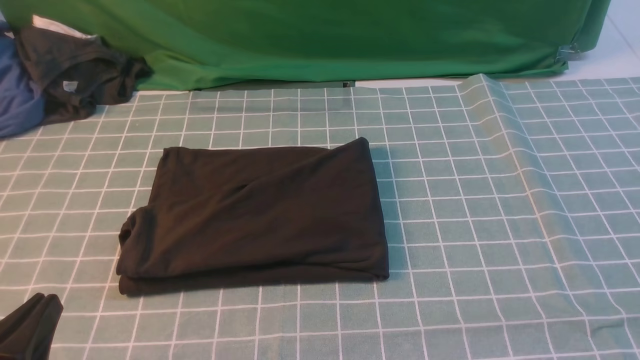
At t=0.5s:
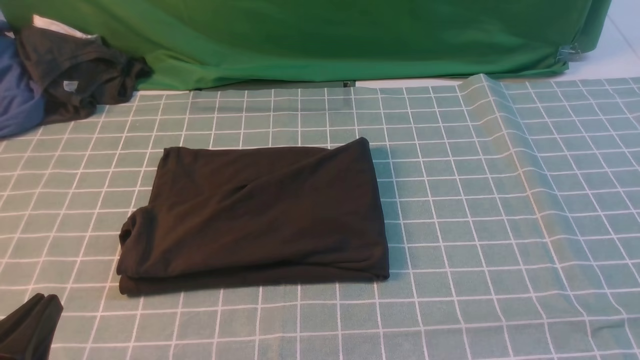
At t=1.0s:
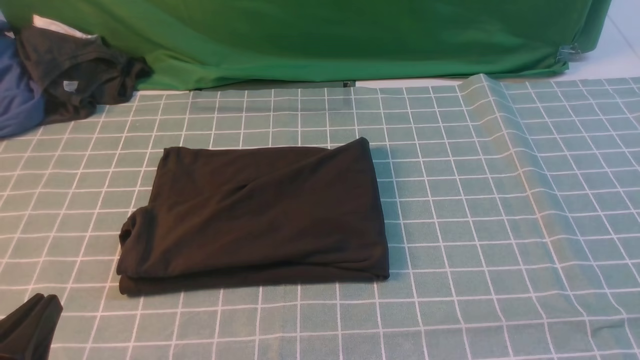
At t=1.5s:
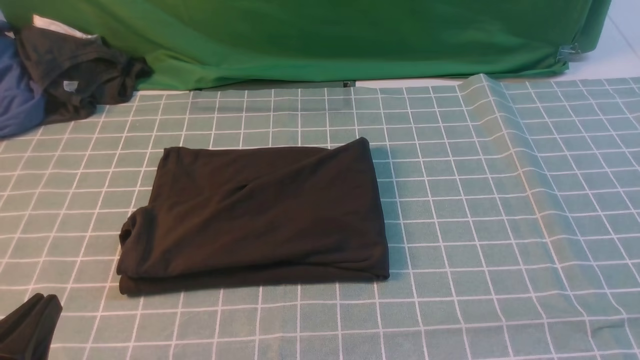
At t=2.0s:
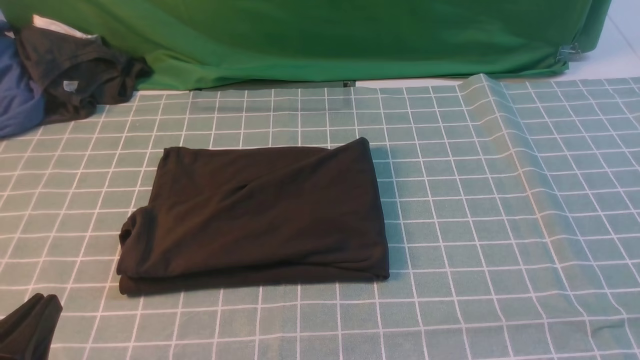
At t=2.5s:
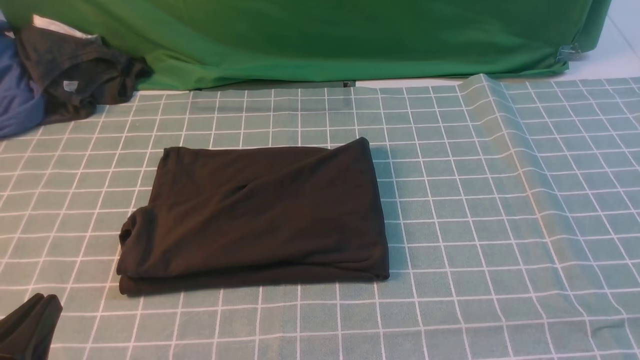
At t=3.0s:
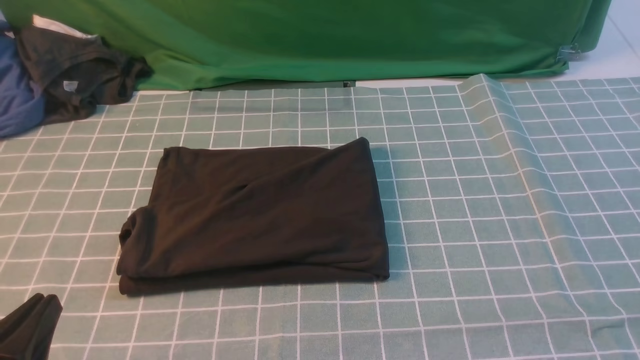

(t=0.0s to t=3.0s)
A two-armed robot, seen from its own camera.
t=1.5s - t=3.0s: Neither gripper changes place.

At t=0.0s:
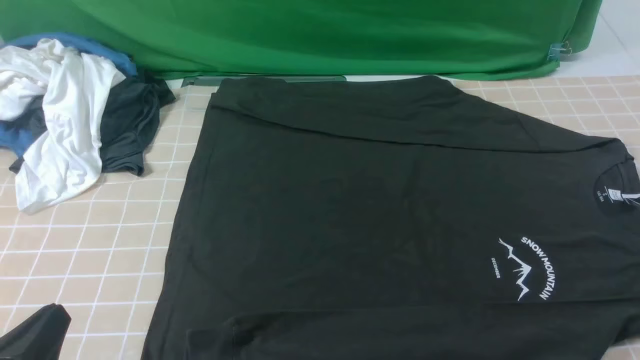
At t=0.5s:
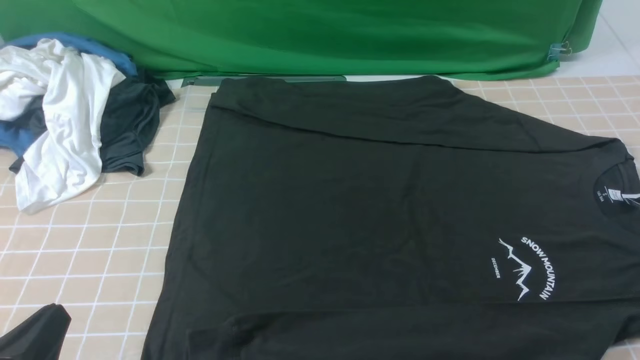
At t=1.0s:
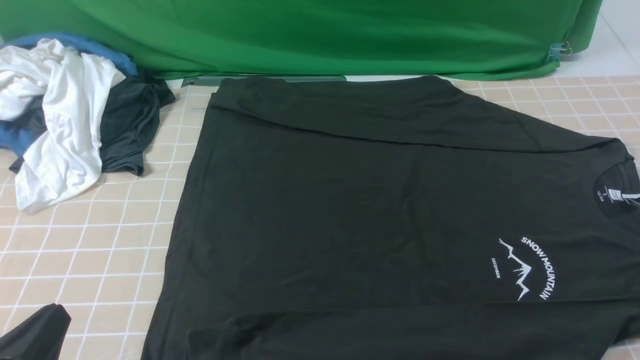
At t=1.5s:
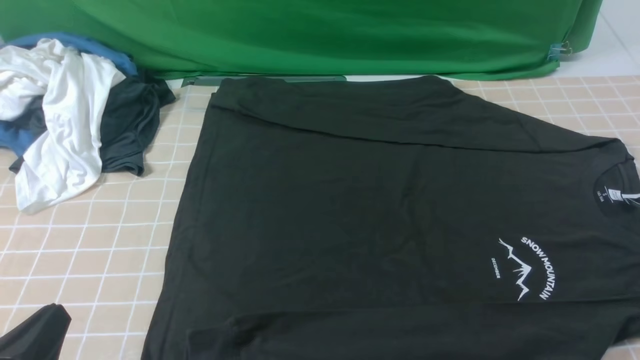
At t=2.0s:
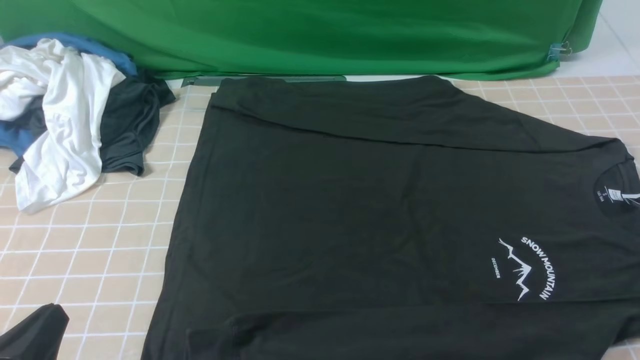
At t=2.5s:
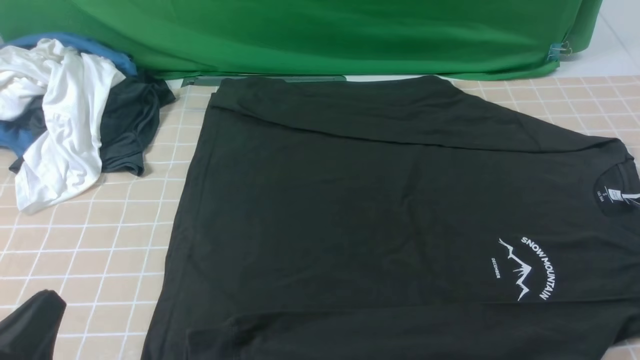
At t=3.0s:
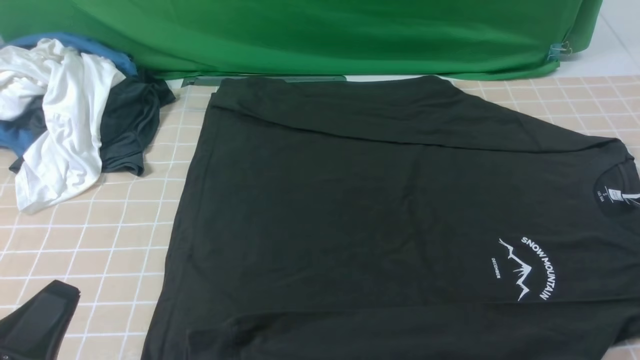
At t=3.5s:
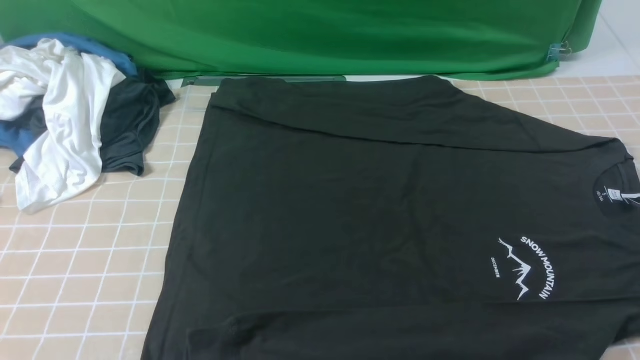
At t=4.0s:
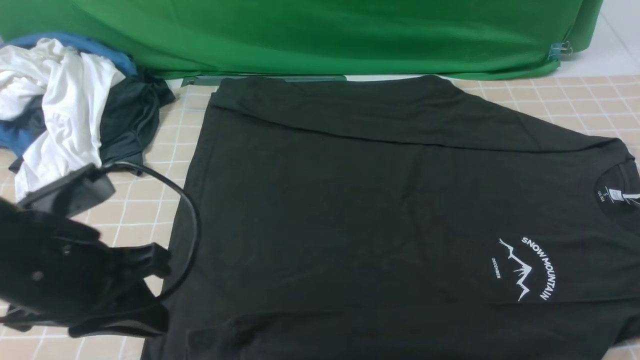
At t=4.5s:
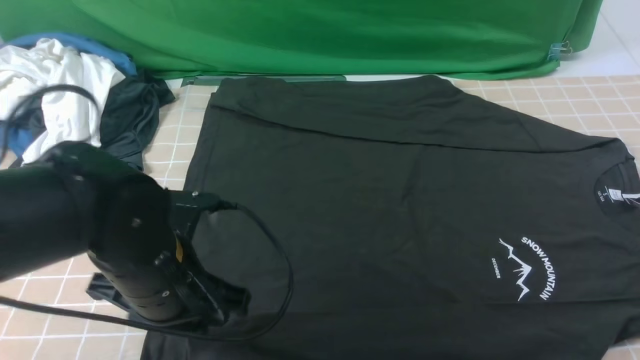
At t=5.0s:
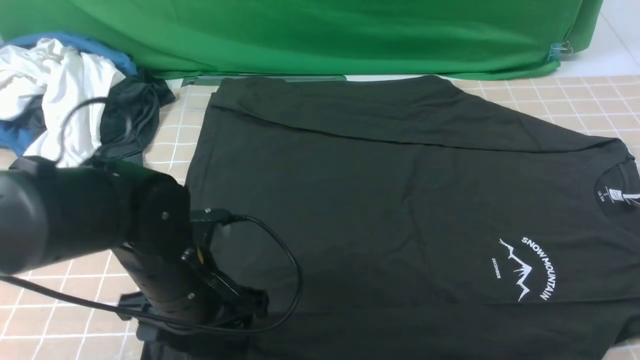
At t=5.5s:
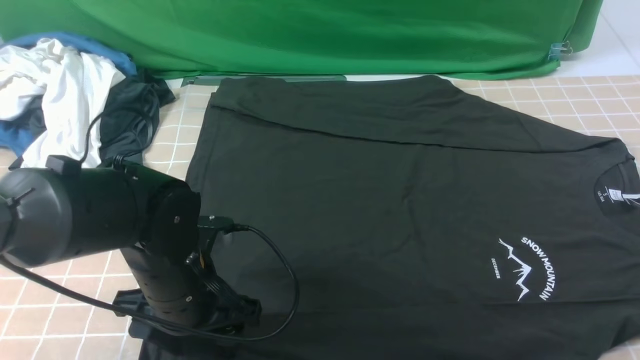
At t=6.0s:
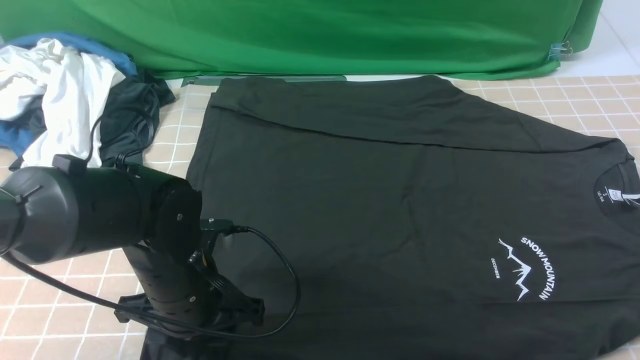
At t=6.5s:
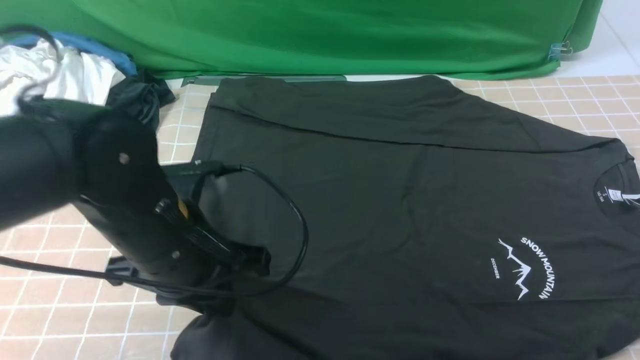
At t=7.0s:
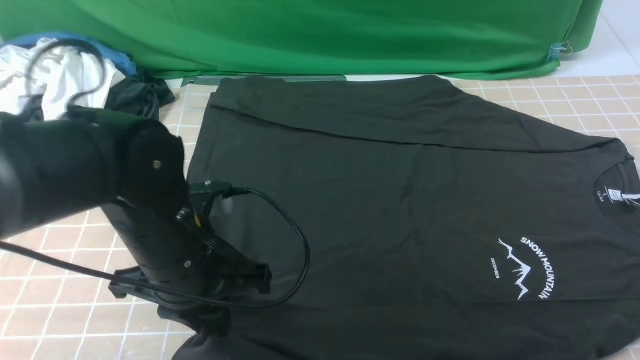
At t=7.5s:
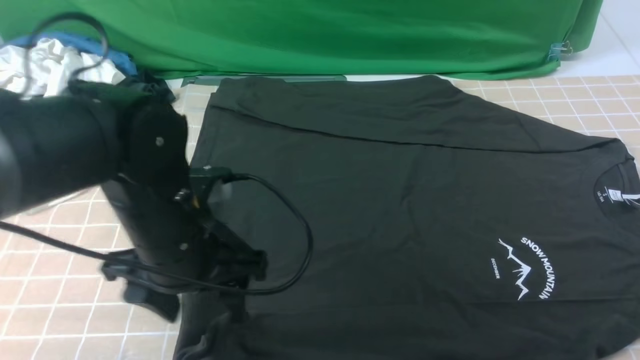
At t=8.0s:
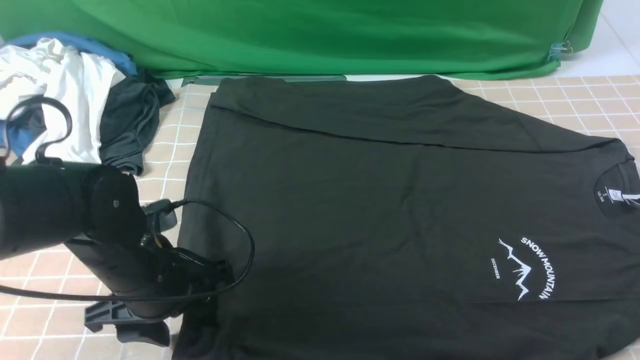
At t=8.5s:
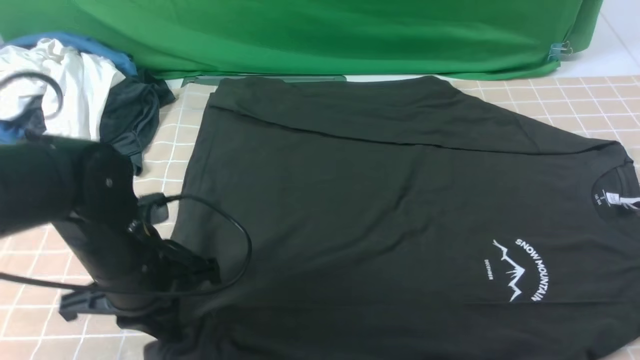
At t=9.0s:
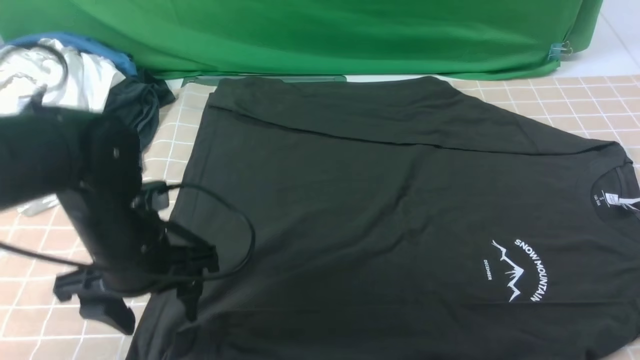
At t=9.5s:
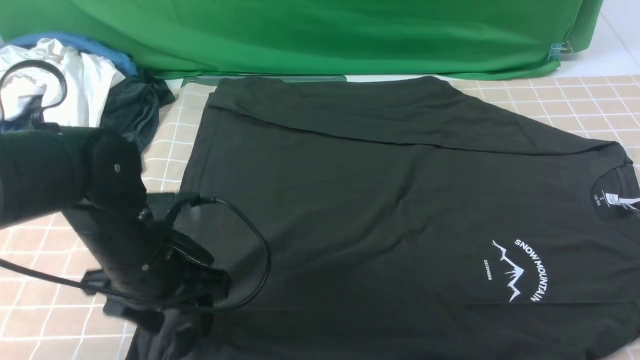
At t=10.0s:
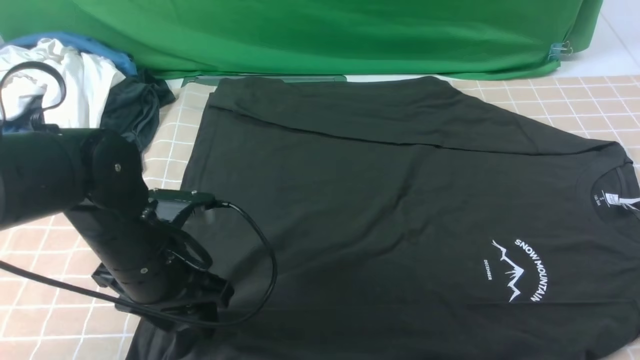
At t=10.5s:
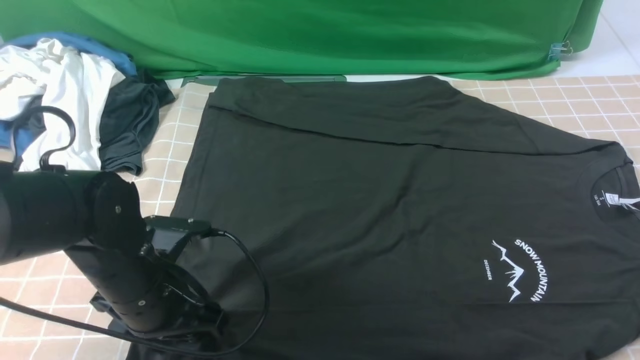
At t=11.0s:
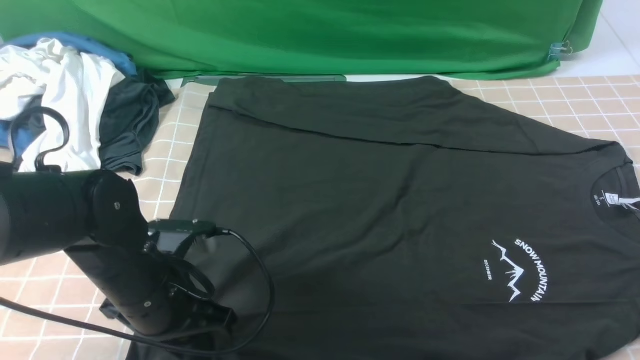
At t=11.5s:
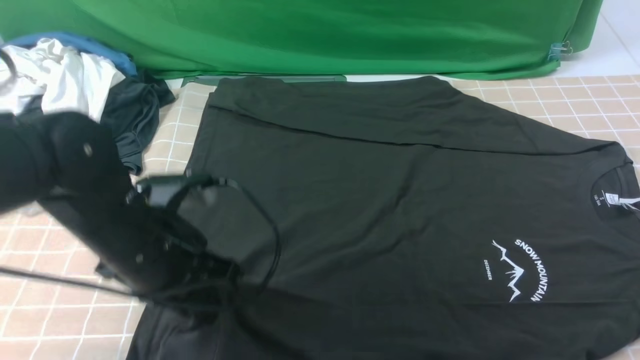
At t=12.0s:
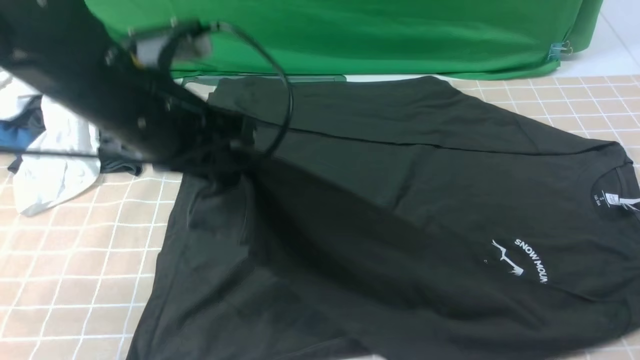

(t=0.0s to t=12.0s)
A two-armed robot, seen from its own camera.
Step, t=0.0s - t=10.5s: use the left arm to clamp the cuff closest to it.
t=0.0s - t=2.0s: Neither gripper changes place.
t=2.0s - t=4.0s: The left gripper is displaced forward, upward and to the right by some 15 cm.
t=4.0s - t=6.0s: The left gripper goes approximately 15 cm downward, to the right and forward, and opens its fingers.
t=6.0s - t=8.0s: The left gripper closes and opens again.
t=8.0s - t=10.0s: The left gripper closes, then reopens.
t=10.0s - t=12.0s: The left gripper is displaced upward by some 15 cm, and closes its fingers.

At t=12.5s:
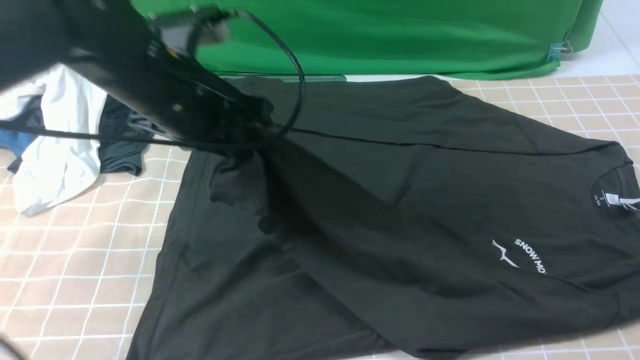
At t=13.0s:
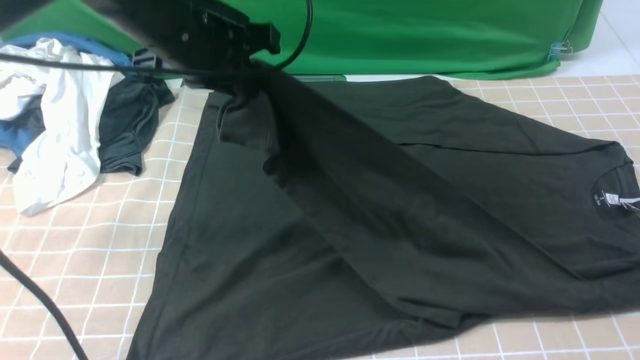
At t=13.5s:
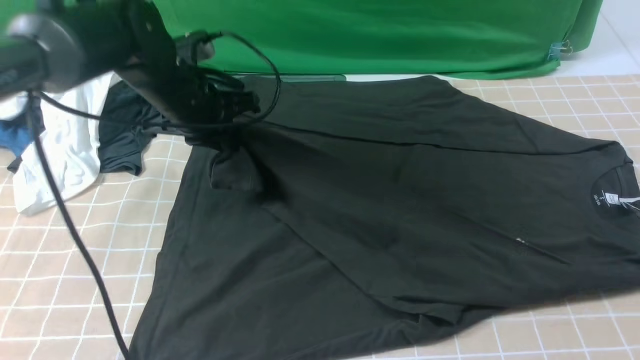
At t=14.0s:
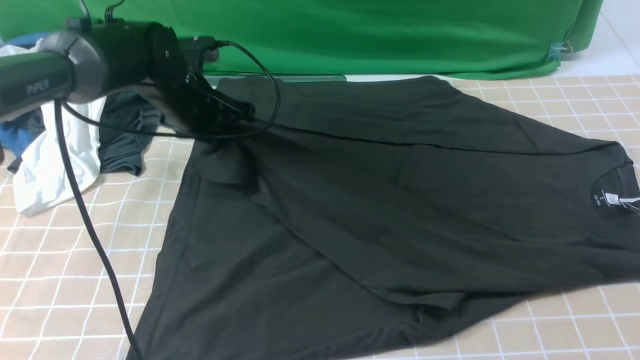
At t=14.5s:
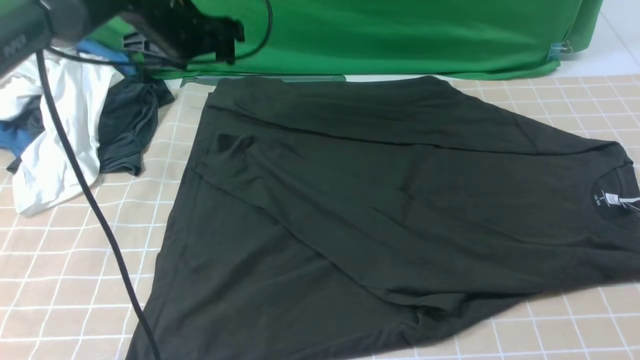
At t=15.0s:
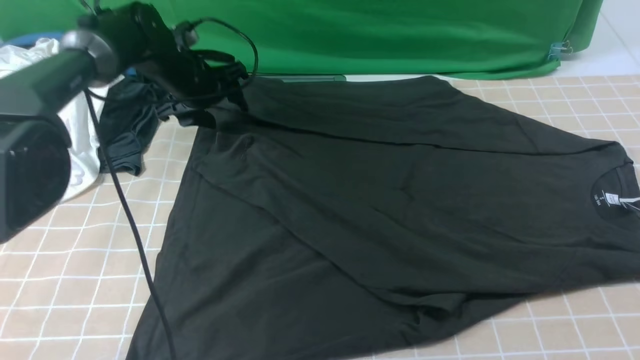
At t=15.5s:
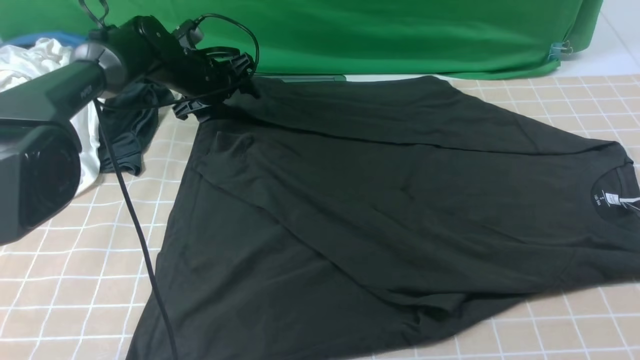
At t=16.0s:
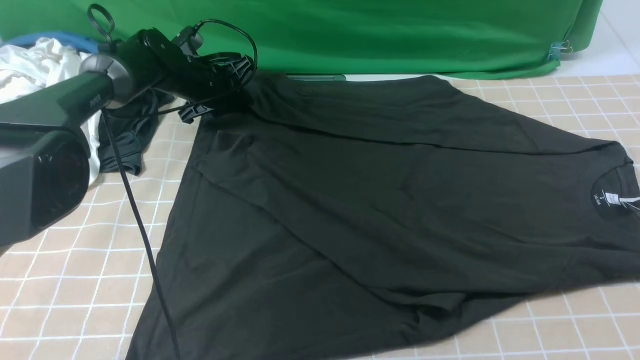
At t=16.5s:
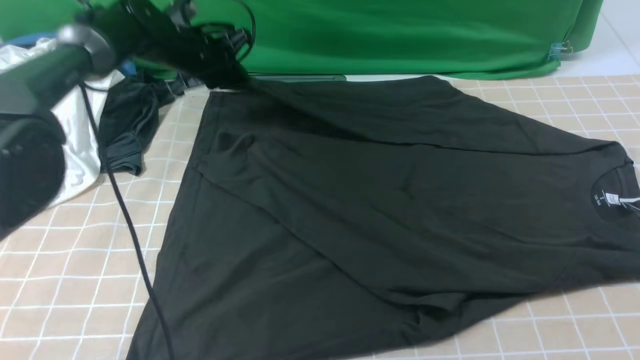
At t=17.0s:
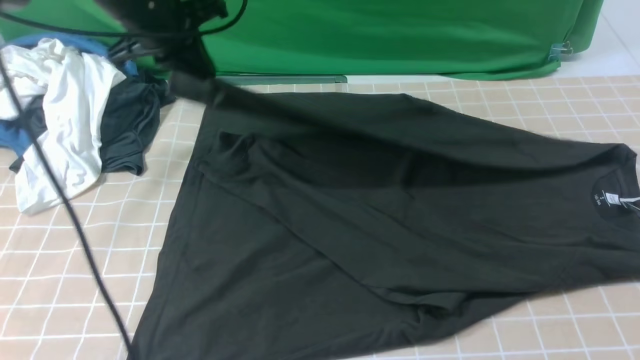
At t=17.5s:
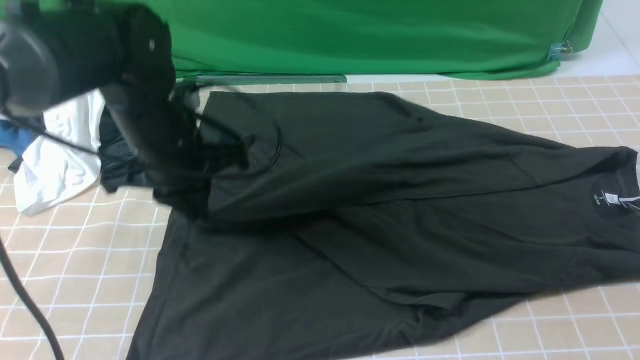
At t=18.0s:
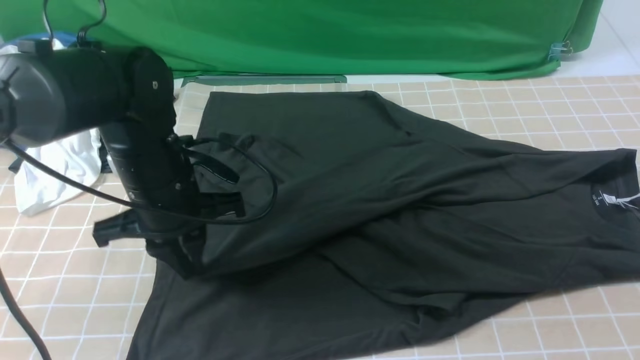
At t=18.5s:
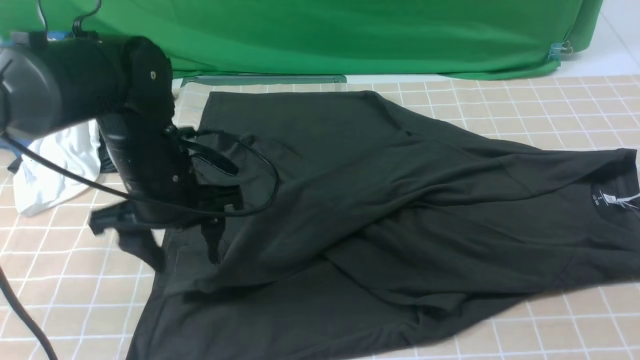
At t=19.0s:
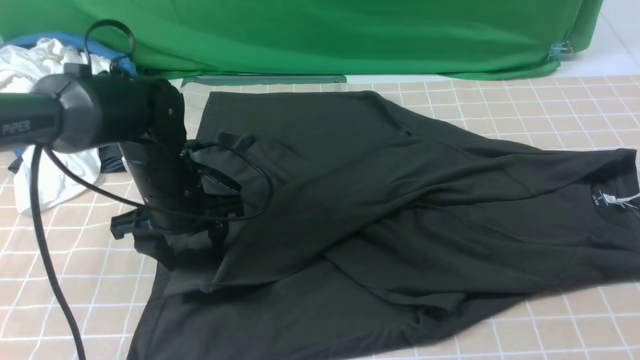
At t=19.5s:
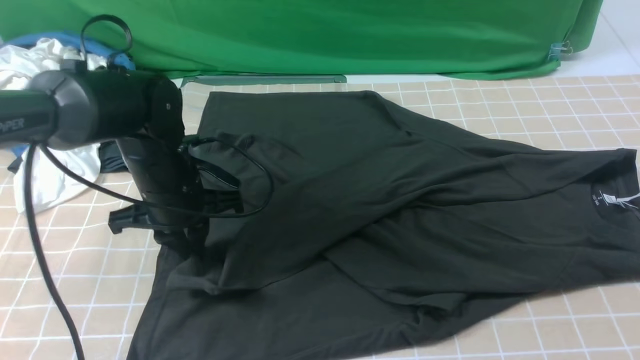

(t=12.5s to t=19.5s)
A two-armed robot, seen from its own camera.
Step, t=12.5s - t=14.0s: use the left arm to drag and place the cuff at the centered position on the left edge of the fabric.
Step, t=14.5s - t=16.0s: use the left arm to clamp the cuff farthest from it.
t=12.5s - t=14.5s: The left gripper is displaced forward by some 15 cm, and opens up.
t=14.5s - t=16.0s: The left gripper goes some 15 cm downward and forward, and closes its fingers.
t=16.0s - t=17.5s: The left gripper shifts about 25 cm backward and upward.
t=17.5s - t=19.5s: The left gripper goes some 5 cm downward, and opens, then closes again.
